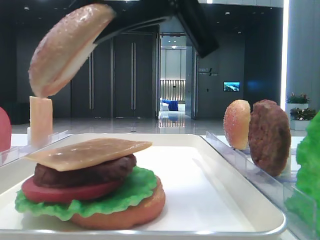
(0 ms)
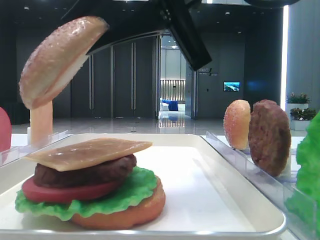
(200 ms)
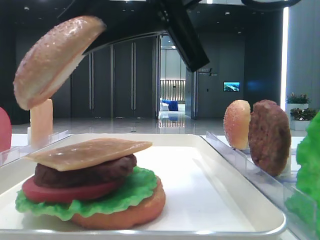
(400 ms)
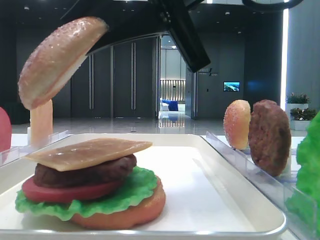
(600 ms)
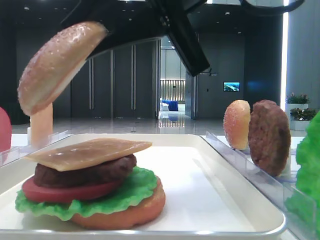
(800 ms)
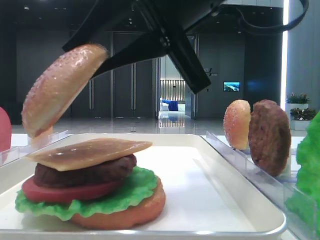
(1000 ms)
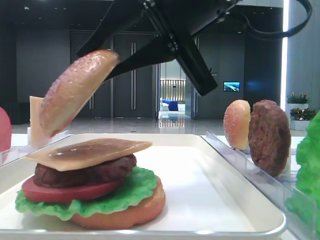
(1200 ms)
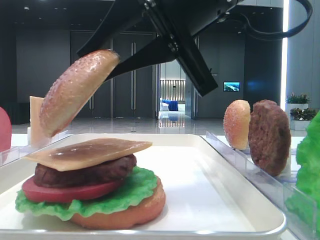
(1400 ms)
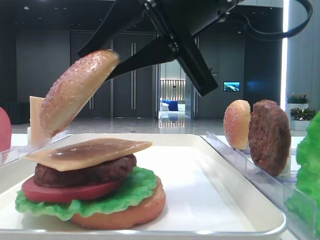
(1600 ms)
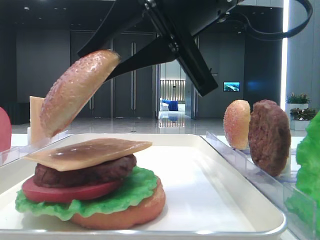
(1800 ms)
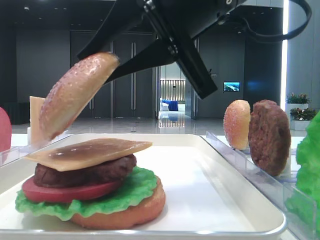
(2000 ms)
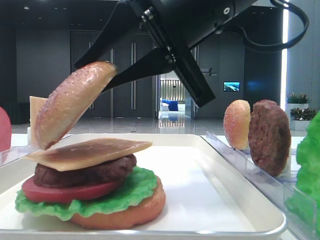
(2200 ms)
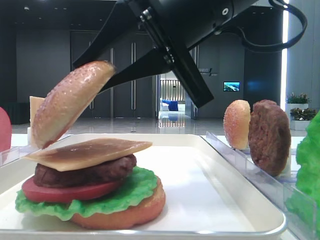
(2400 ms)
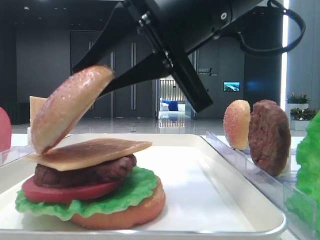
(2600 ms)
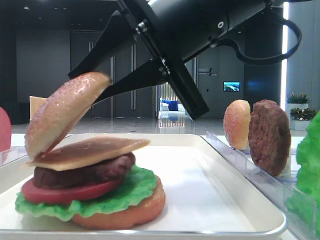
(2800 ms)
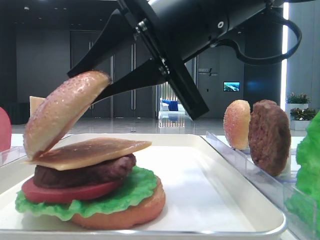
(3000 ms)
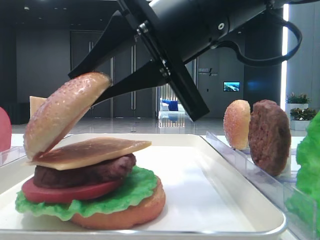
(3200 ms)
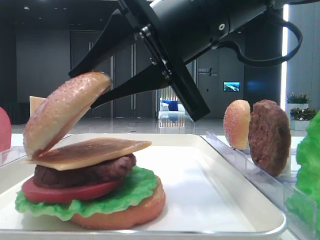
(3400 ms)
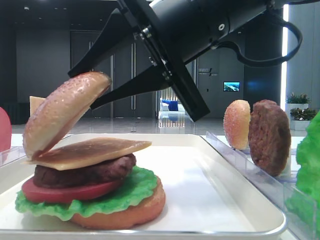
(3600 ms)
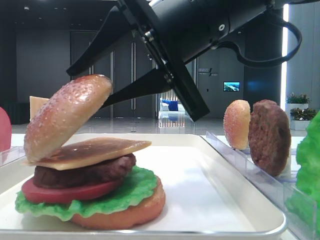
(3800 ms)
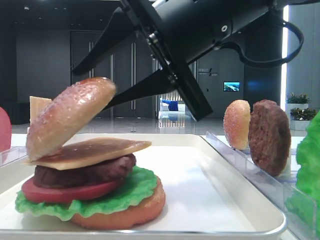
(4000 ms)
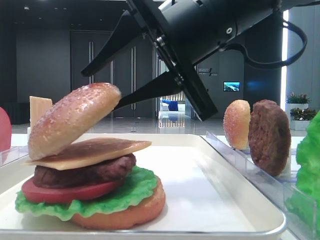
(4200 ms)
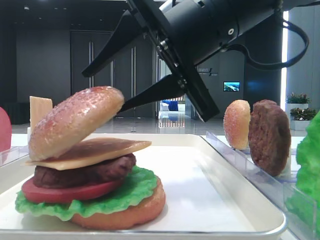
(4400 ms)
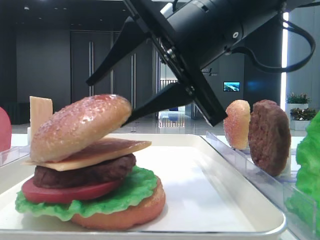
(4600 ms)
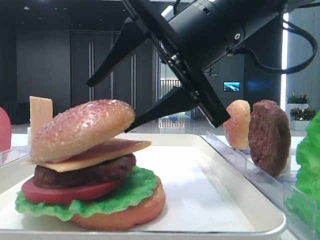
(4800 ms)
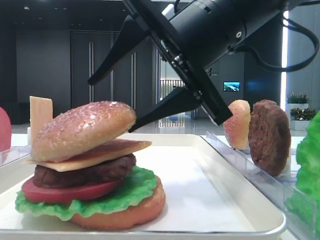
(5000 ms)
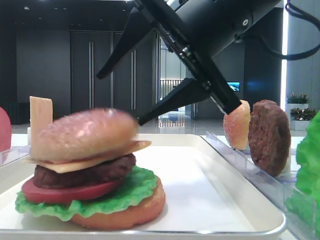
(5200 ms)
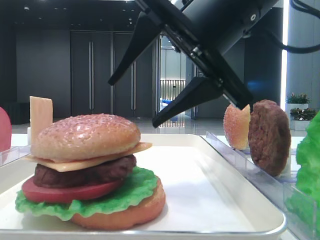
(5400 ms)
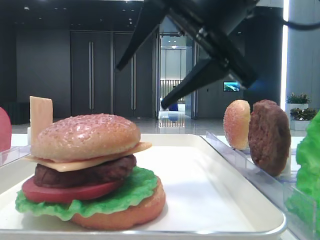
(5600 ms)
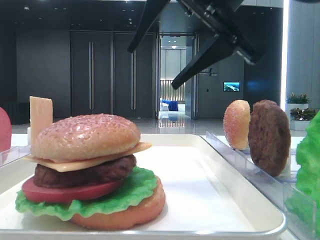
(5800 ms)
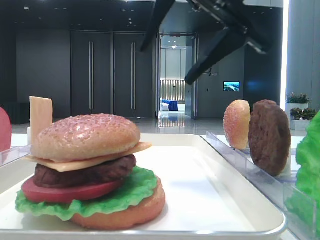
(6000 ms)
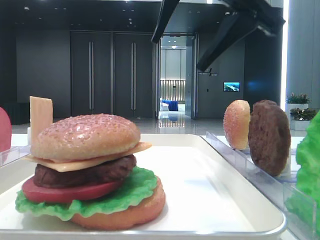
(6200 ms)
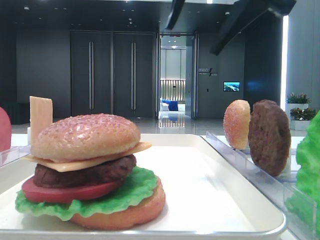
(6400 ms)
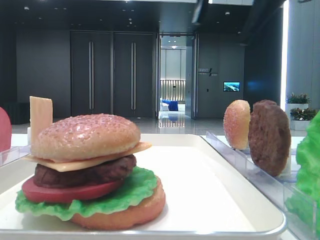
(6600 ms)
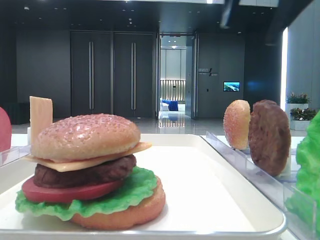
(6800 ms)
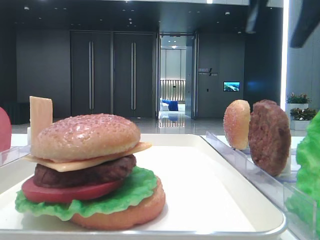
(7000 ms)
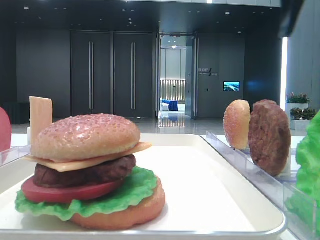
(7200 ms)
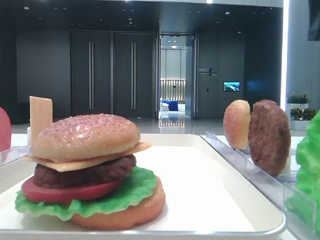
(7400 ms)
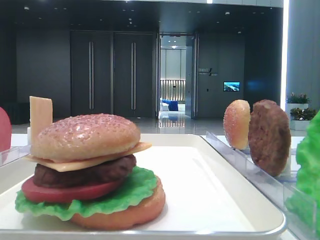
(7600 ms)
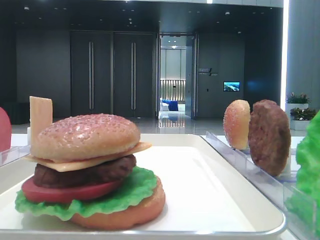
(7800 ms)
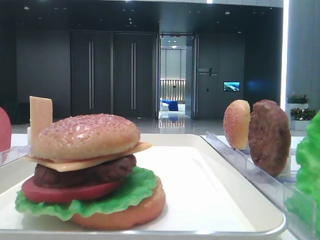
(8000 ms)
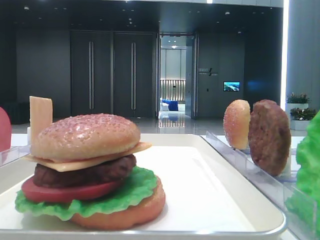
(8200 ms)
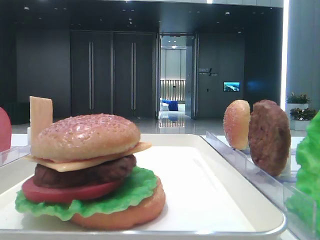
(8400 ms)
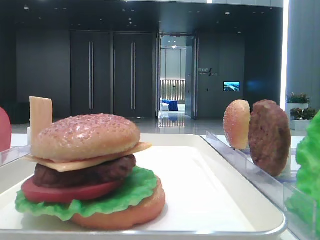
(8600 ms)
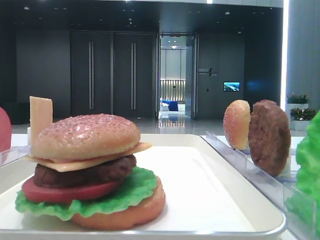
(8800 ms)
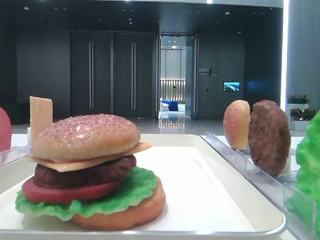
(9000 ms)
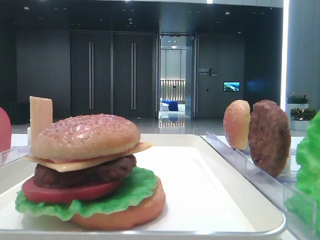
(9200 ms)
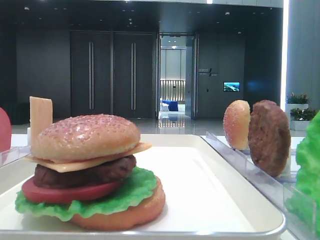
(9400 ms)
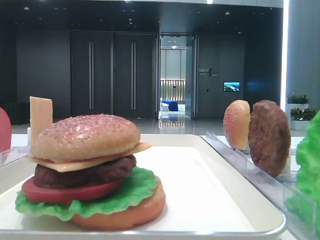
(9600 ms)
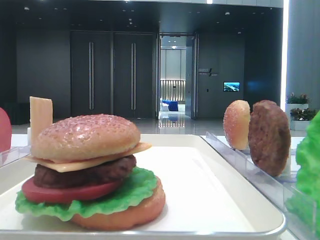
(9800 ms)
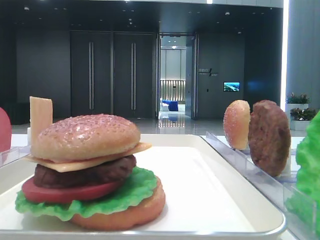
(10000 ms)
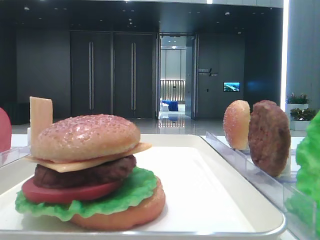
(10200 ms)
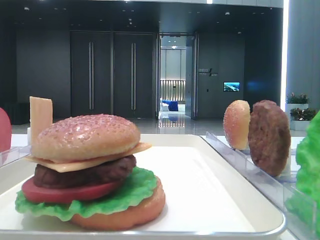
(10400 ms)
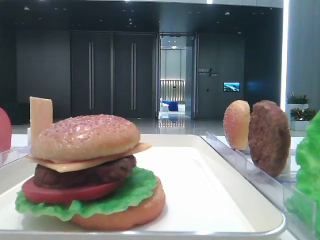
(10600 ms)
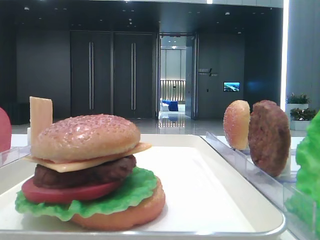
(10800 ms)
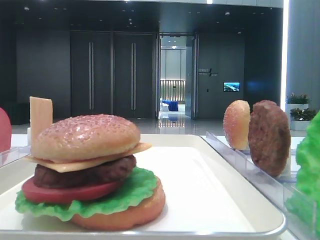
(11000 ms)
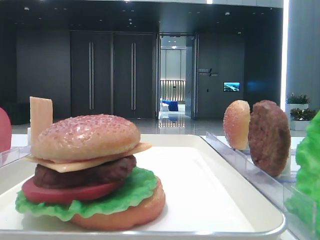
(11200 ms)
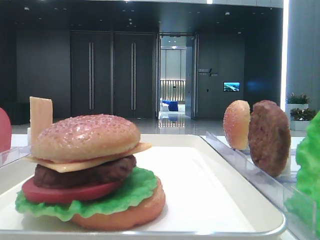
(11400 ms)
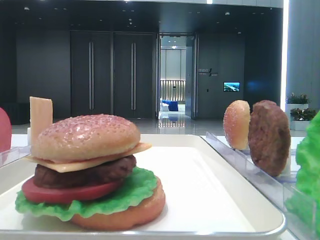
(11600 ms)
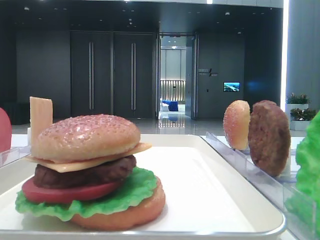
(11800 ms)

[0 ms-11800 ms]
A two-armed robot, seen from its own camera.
Step, 0 ms to 5000 ms: Place the top bread slice on the cheese with the right hand.
0 ms to 1400 ms: There are only small adjustments of the grippers.
1400 ms to 3000 ms: The grippers stay close to where they were, moving slightly.
3000 ms to 4400 ms: The right gripper opens.
4400 ms to 6000 ms: The right gripper moves upward, roughly 5 cm, and opens.
6000 ms to 7400 ms: The right gripper shifts about 20 cm to the right.

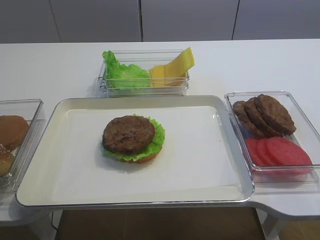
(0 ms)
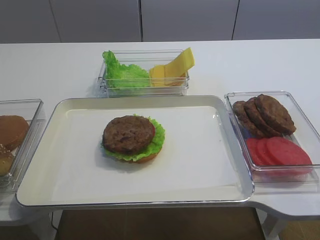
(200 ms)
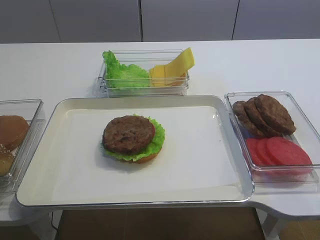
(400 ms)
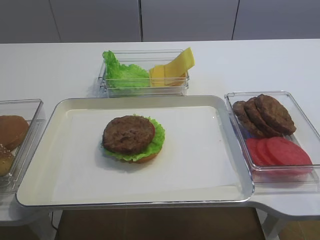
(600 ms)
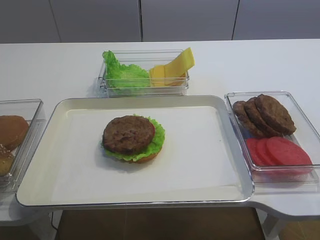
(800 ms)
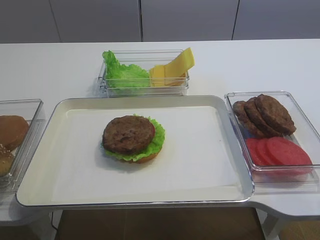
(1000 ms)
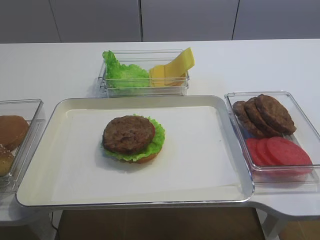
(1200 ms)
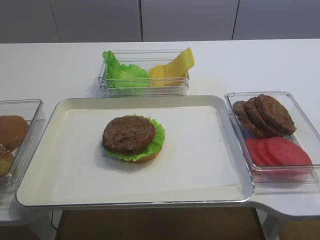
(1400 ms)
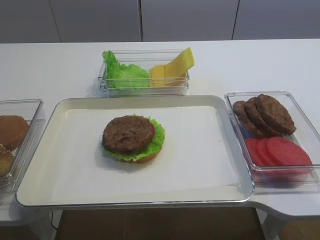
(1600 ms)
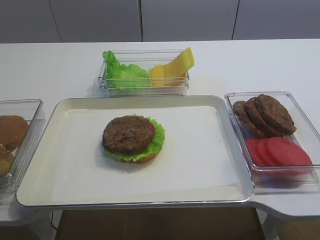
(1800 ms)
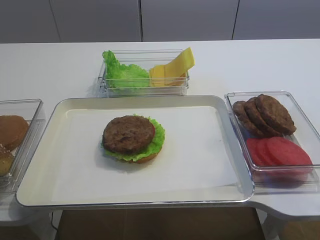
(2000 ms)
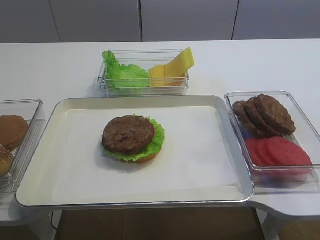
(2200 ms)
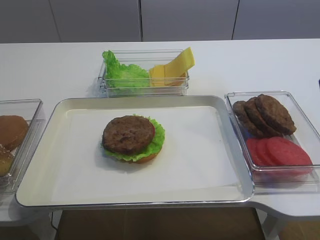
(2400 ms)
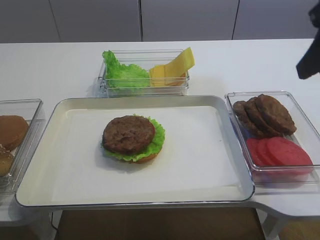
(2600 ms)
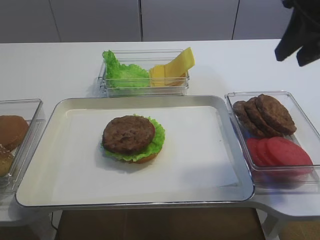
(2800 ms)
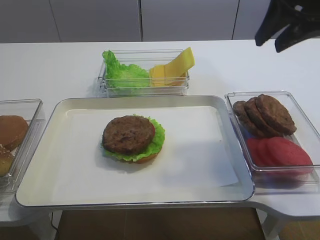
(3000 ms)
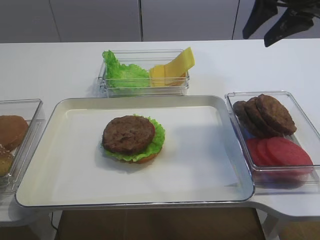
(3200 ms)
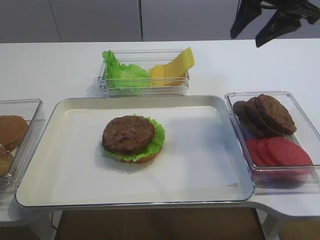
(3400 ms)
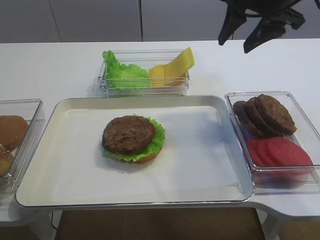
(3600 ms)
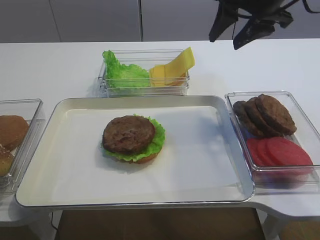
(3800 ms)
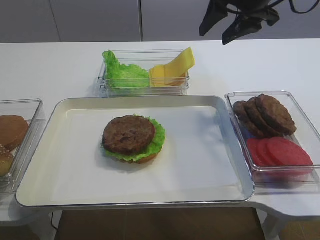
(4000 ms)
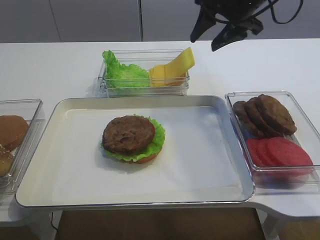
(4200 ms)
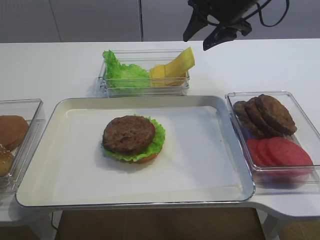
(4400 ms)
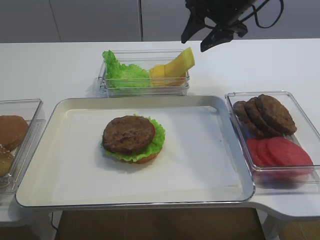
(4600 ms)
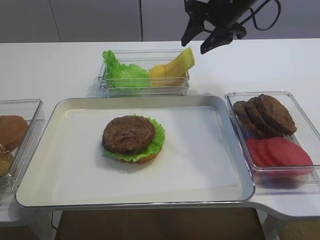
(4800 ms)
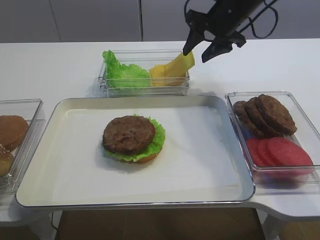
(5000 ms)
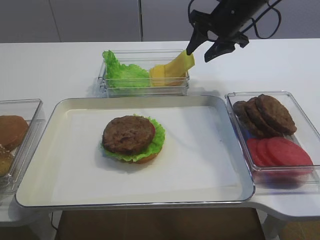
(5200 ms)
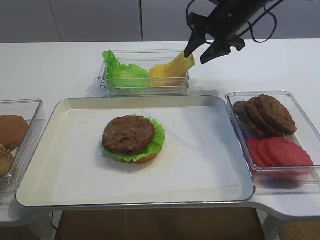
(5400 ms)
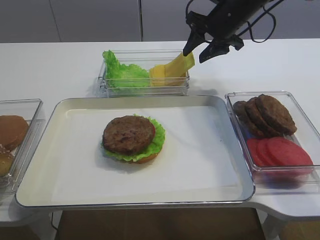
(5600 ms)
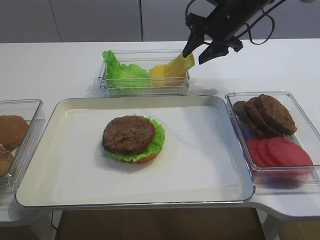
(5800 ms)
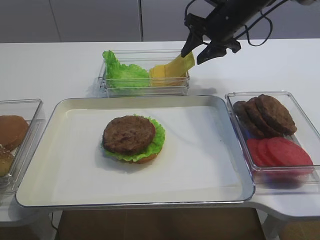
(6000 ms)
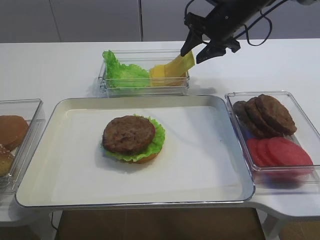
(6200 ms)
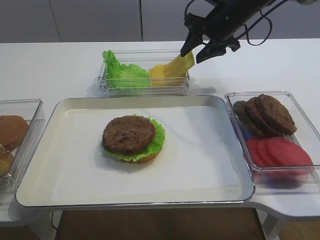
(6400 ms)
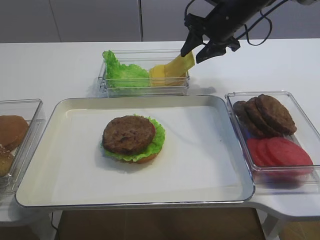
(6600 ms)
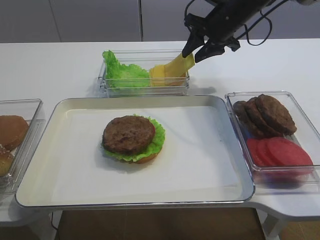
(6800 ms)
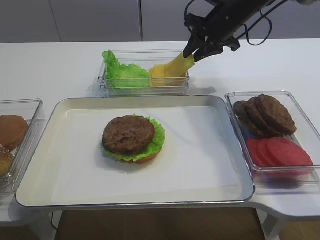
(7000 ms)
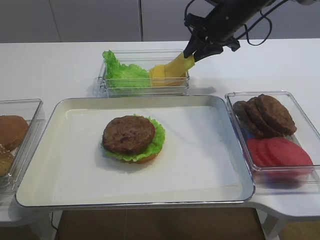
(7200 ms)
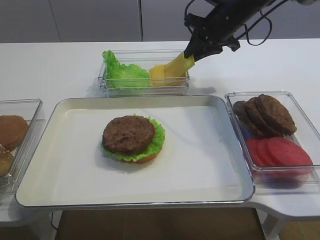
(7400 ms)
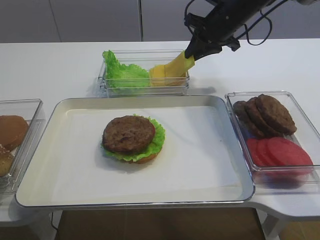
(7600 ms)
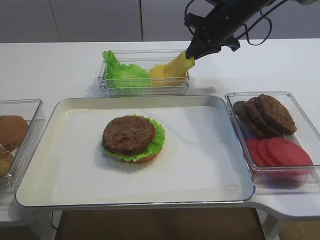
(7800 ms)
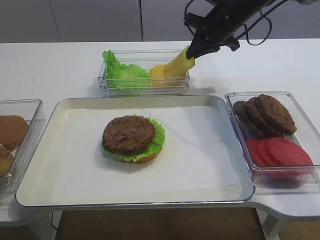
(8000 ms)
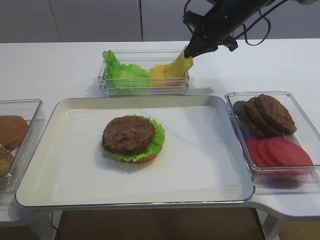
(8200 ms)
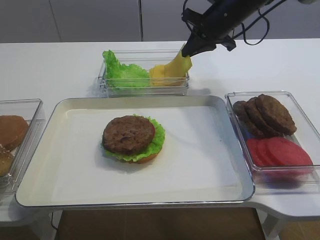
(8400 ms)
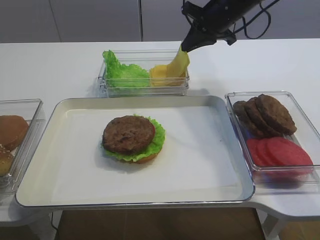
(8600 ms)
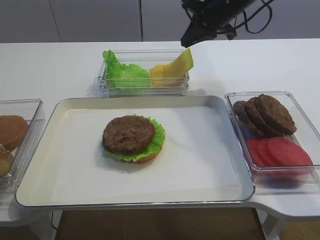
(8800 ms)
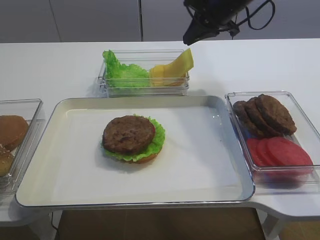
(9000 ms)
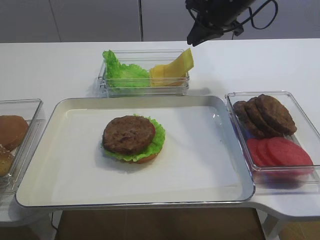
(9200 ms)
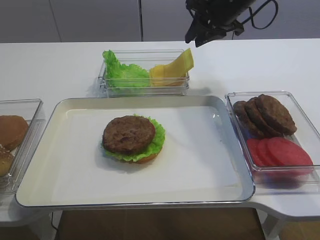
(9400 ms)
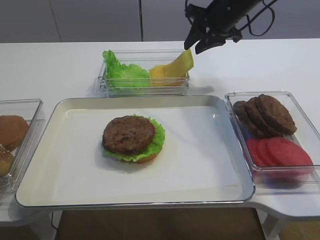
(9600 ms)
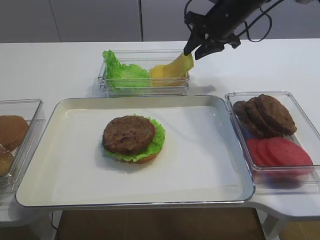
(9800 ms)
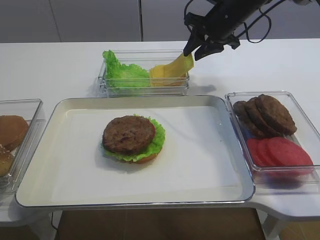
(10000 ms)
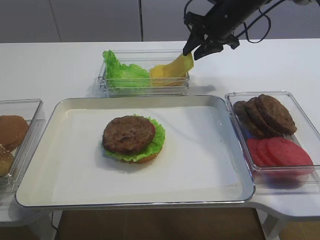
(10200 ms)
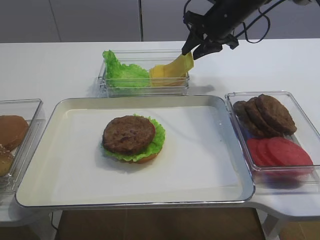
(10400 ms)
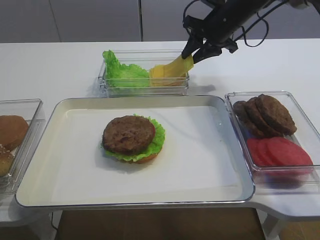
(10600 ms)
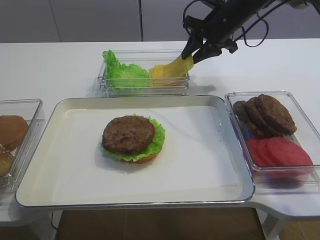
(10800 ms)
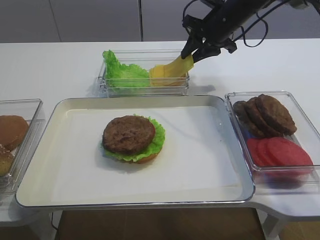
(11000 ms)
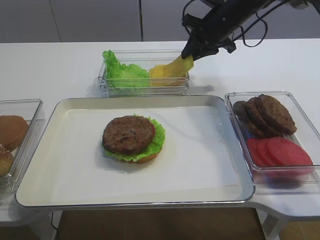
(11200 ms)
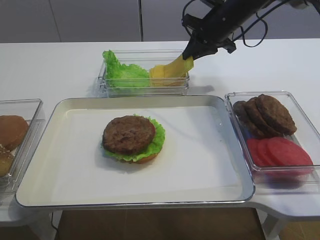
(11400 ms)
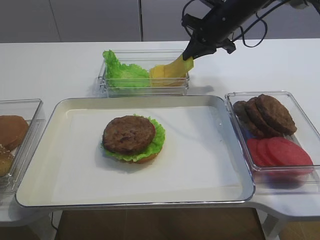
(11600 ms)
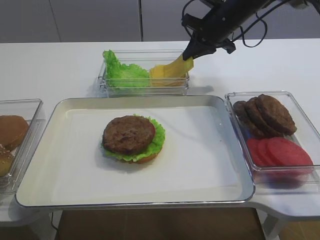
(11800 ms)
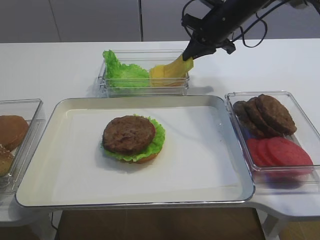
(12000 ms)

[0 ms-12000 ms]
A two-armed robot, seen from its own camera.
1600 ms to 3000 ms: The right gripper moves forward, about 30 cm.
3000 ms to 4400 ms: The right gripper shifts roughly 15 cm forward, to the left and downward.
4400 ms to 6000 ms: The right gripper shifts roughly 5 cm downward.
6000 ms to 7600 ms: The right gripper closes up.
7600 ms to 9000 ms: The grippers move only a little.
9000 ms to 10400 ms: The right gripper opens up.
10400 ms to 12000 ms: The right gripper closes.
